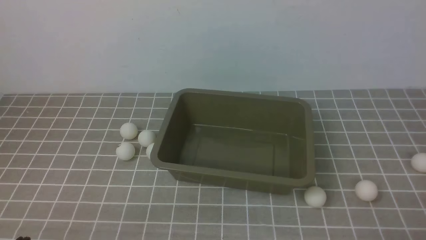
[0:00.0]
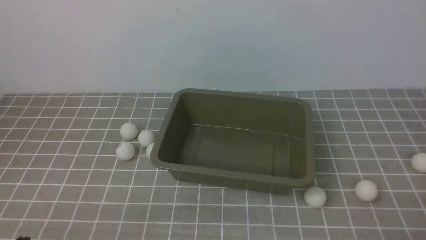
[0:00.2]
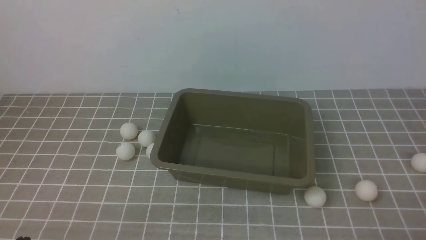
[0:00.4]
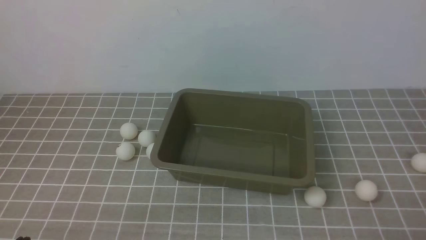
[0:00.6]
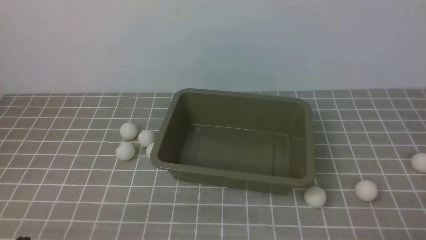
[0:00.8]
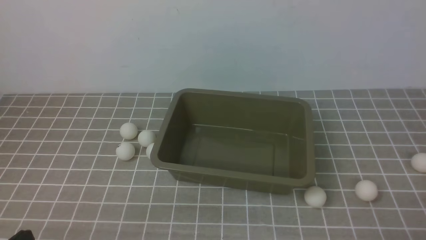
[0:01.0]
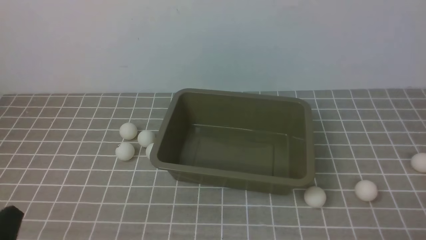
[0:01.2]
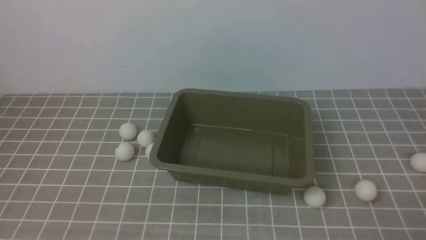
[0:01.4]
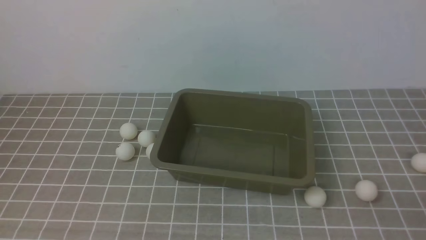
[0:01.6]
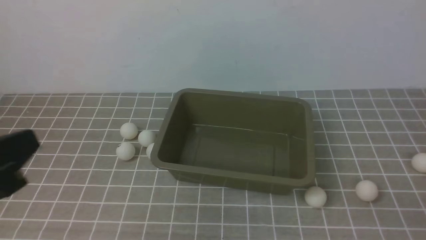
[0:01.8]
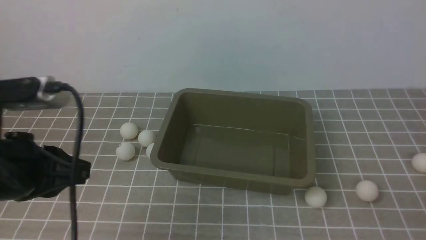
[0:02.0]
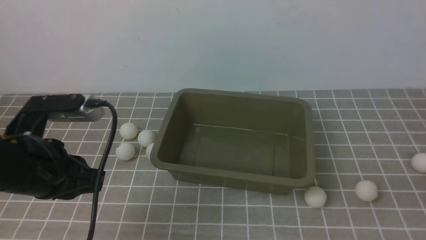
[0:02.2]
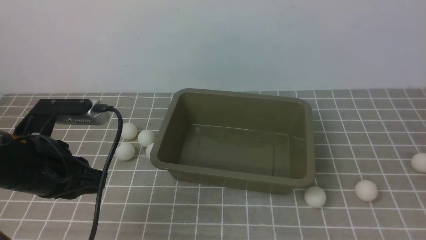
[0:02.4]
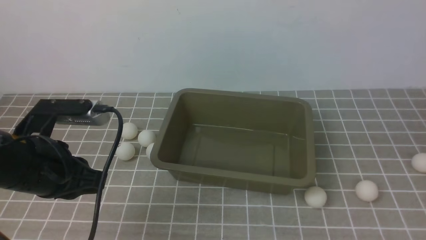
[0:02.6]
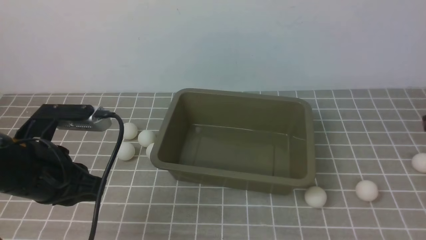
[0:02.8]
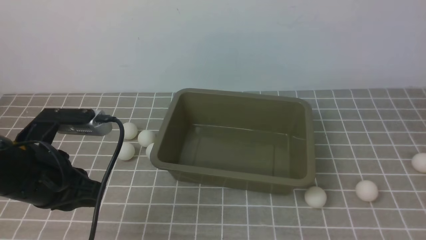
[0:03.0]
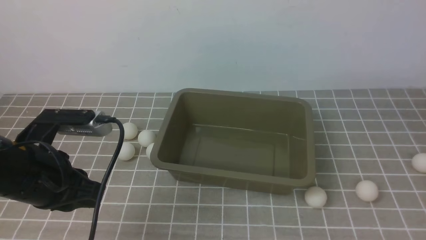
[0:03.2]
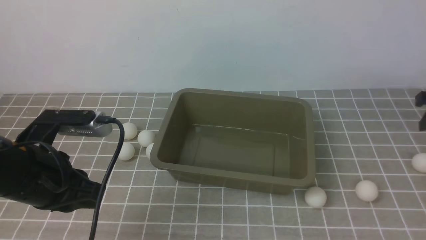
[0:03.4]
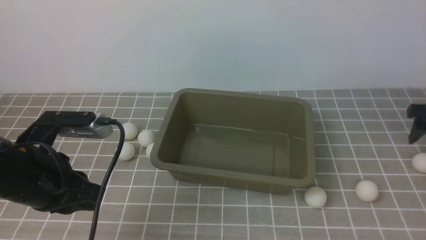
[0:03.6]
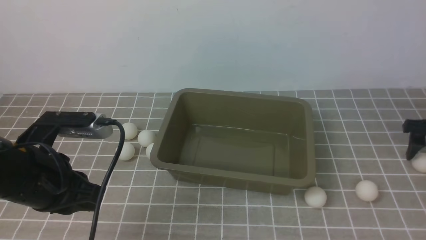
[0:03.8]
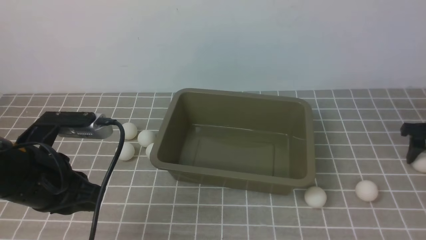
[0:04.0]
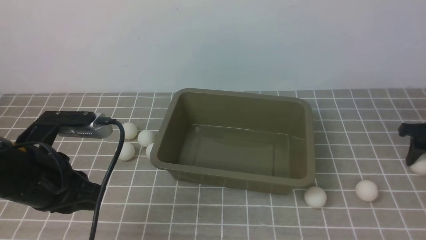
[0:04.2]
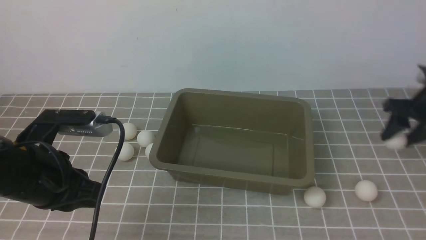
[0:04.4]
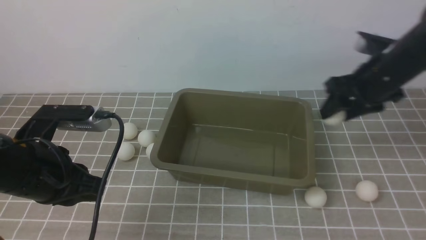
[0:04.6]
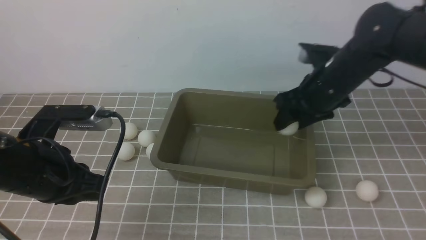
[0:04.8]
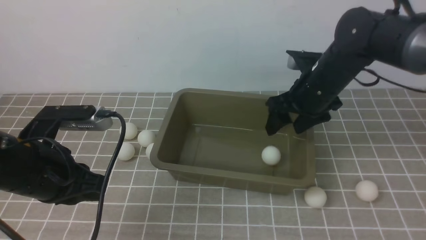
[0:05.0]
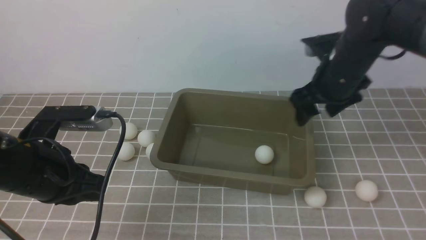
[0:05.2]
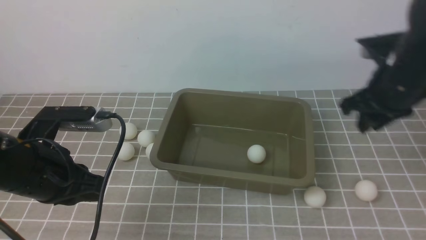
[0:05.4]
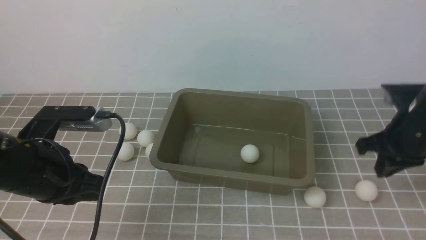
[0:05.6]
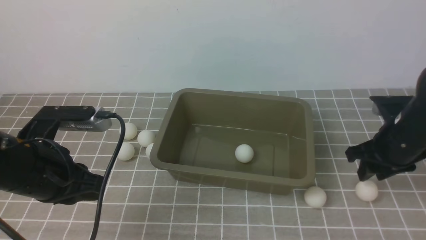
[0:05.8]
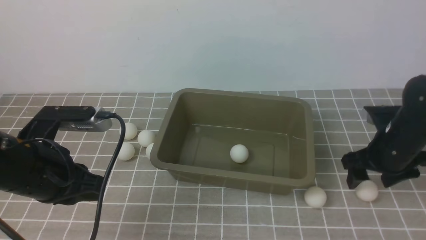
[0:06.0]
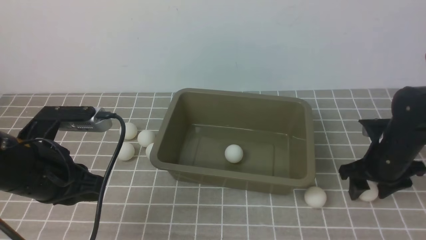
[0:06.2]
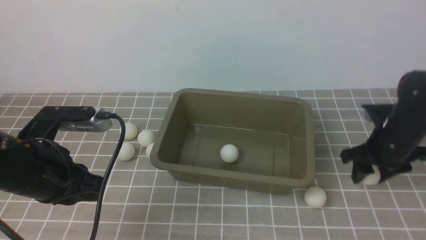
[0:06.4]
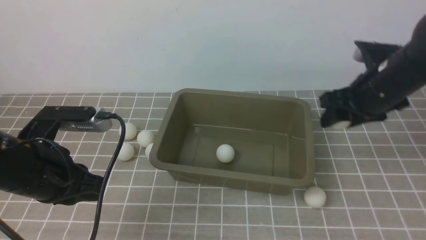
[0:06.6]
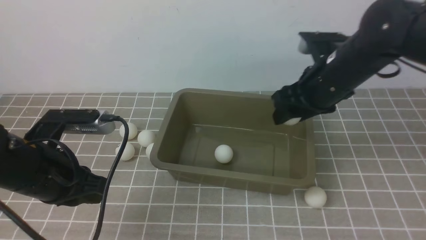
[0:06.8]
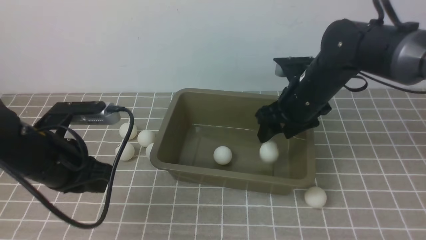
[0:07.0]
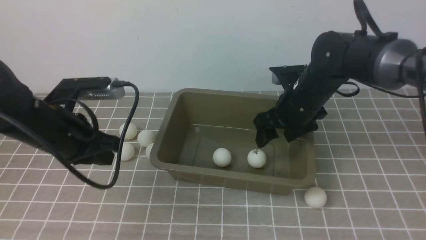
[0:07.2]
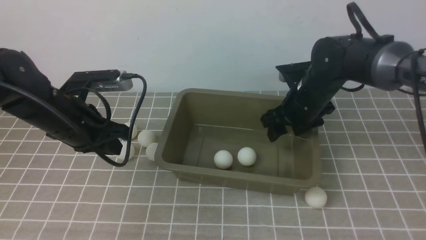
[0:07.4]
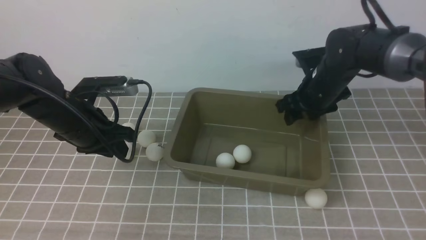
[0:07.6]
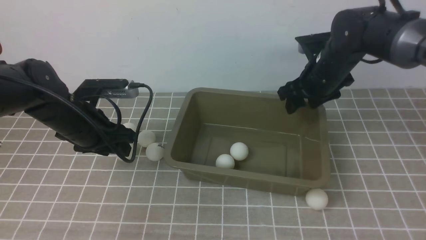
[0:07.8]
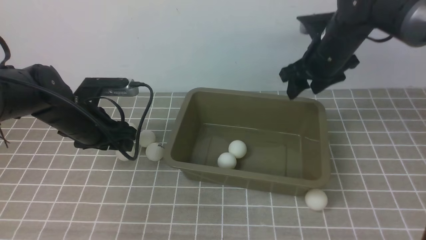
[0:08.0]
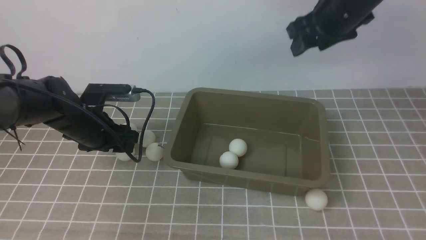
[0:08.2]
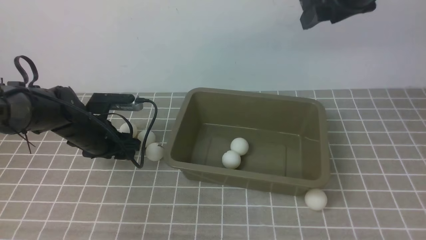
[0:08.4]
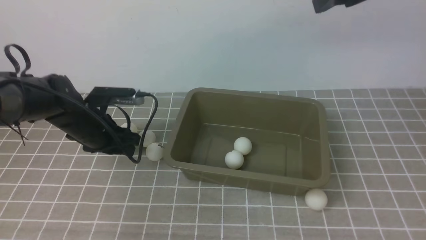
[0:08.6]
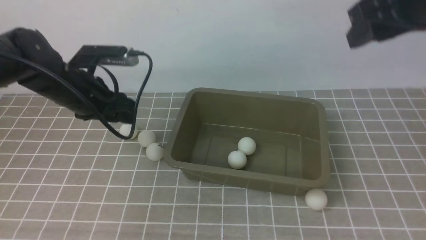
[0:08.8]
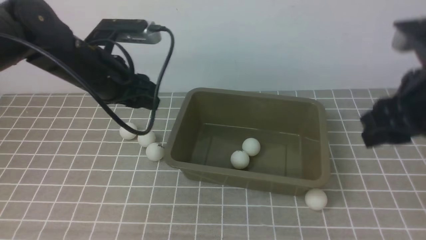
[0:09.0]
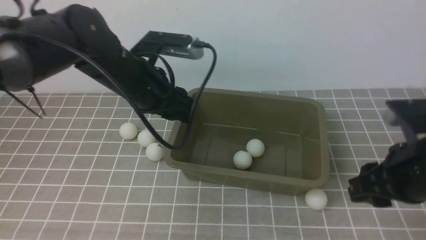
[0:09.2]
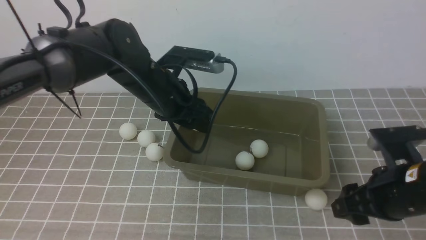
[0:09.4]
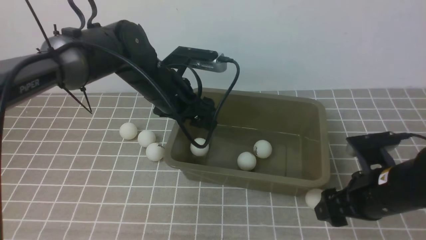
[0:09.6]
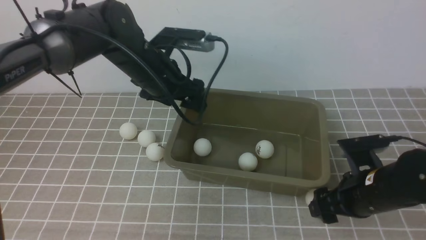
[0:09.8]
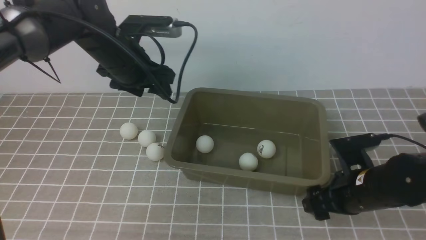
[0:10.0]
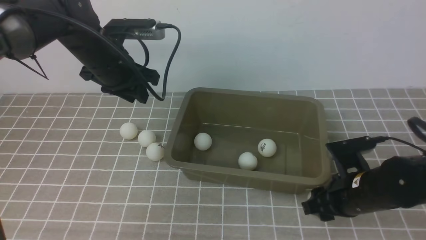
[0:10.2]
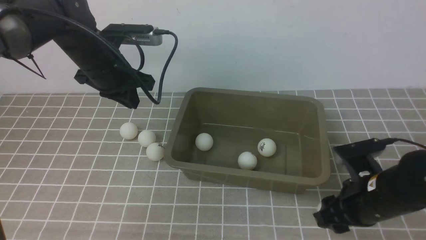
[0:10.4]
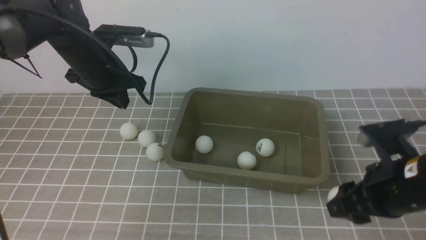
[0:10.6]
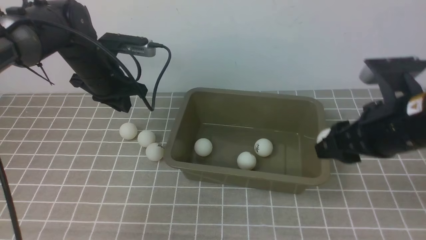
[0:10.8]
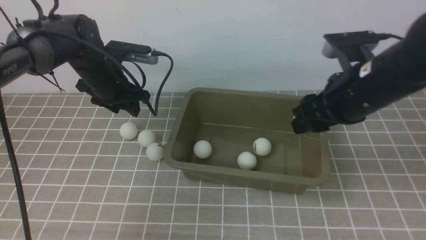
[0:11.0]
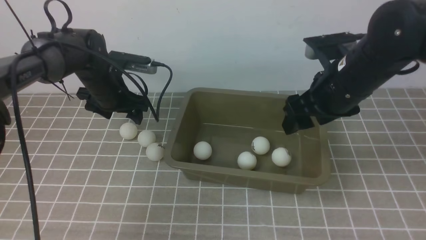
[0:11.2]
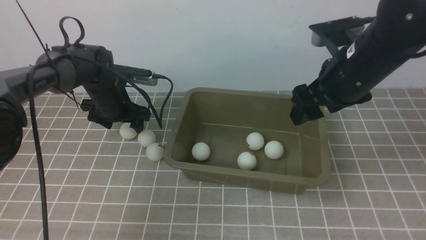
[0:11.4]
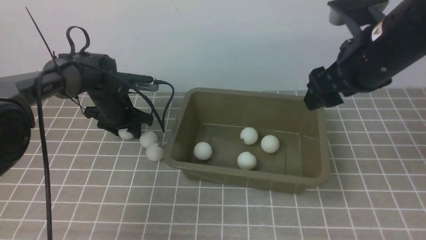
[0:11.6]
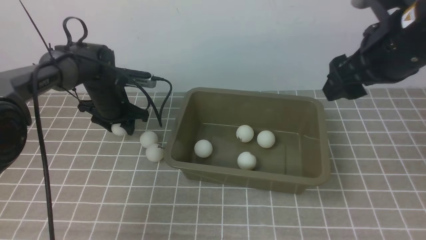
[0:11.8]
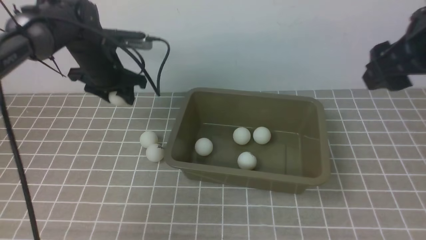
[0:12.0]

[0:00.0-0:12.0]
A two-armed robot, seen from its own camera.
Step, 0:00.0 to 0:04.4: use the right arm to clamp the table tennis ball closest to it.
Step, 0:04.6 to 0:05.2: use the right arm to put the table tennis ball into the box.
Step, 0:05.4 to 0:06.4: use the right arm to clamp the table tennis ball closest to it.
Step, 0:06.6 to 0:07.0: use the right arm to put the table tennis ball into the box.
Step, 0:07.2 to 0:08.6: use the left arm to clamp the table tennis ball closest to it.
Step, 0:08.8 to 0:09.6: use the left arm to put the table tennis ball into the box.
Step, 0:09.8 to 0:10.6: use the right arm to clamp the table tennis ball closest to it.
Step, 0:10.8 to 0:11.8: use the left arm to clamp the table tennis ball closest to it.
0:01.6 to 0:03.0: The left gripper shifts approximately 15 cm forward.
0:03.0 to 0:04.4: The right gripper shifts some 15 cm forward and downward, and opens.
0:04.4 to 0:06.0: The right gripper moves backward, approximately 5 cm, reaches approximately 15 cm to the left, then returns, and closes, then opens again.
0:06.0 to 0:07.6: The left gripper travels forward by about 10 cm, and opens; the right gripper heads forward and to the left, covering some 15 cm.
0:07.6 to 0:09.0: The left gripper travels upward and to the right by approximately 10 cm. The right gripper goes roughly 20 cm backward and upward.
0:09.0 to 0:10.4: The left gripper moves forward, some 5 cm, travels to the right and back again, some 5 cm each way, and closes. Meanwhile the right gripper moves downward, some 15 cm, and opens, then closes again.
0:10.4 to 0:12.0: The left gripper reaches about 10 cm downward, then returns, and opens up, while the right gripper goes roughly 20 cm upward.

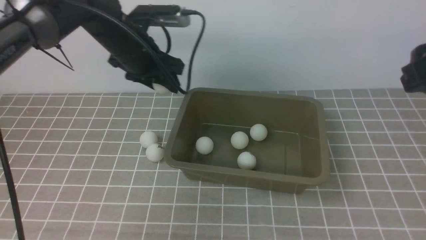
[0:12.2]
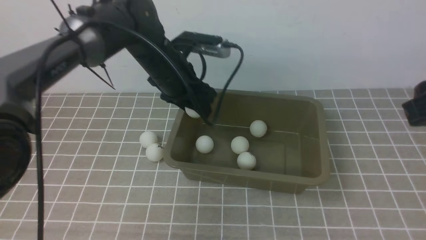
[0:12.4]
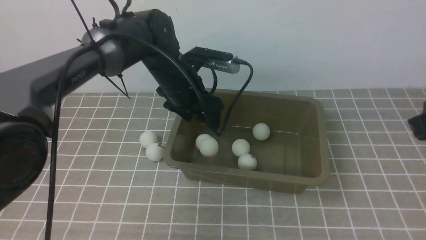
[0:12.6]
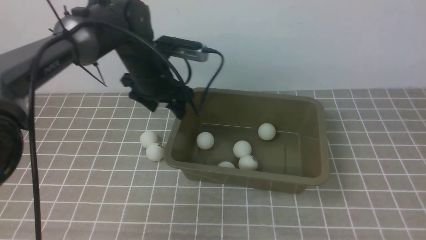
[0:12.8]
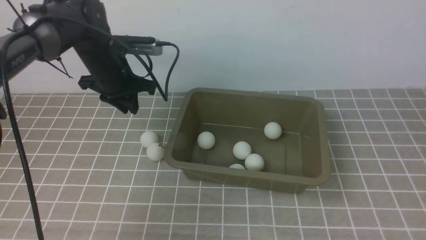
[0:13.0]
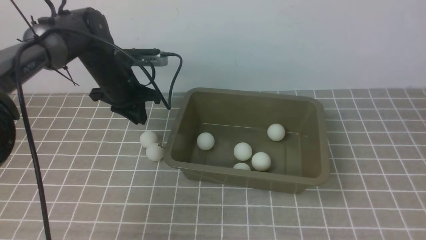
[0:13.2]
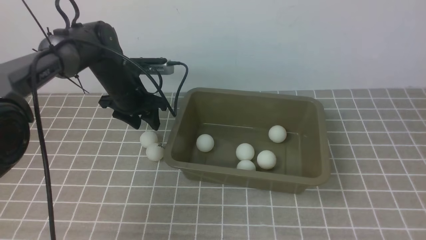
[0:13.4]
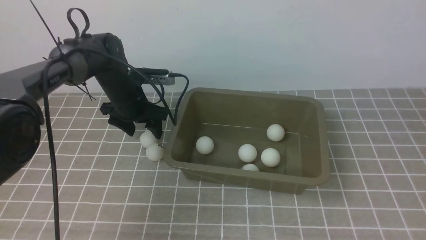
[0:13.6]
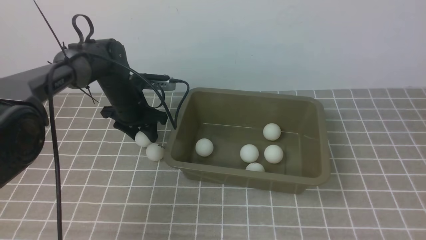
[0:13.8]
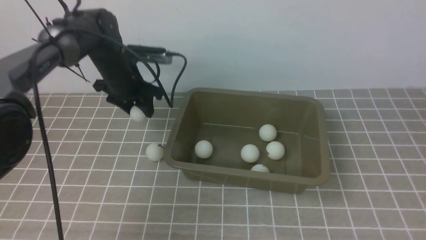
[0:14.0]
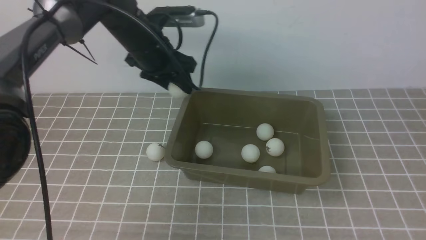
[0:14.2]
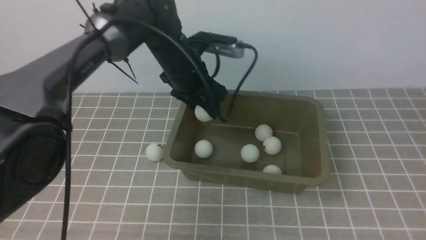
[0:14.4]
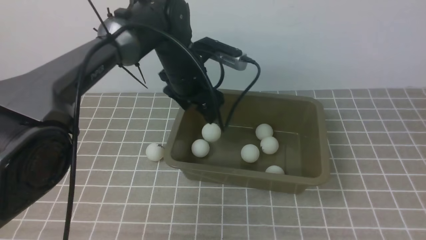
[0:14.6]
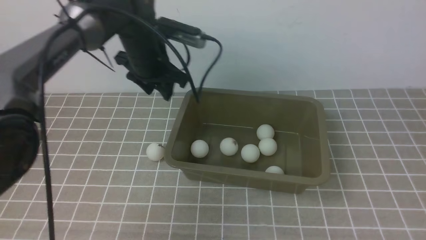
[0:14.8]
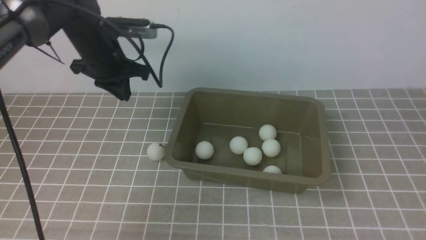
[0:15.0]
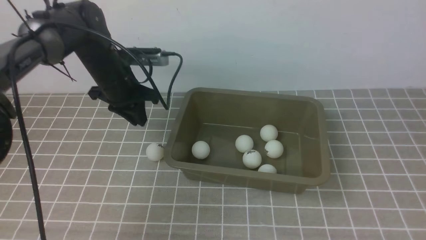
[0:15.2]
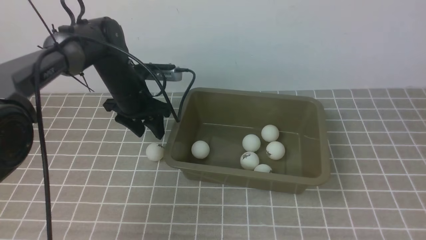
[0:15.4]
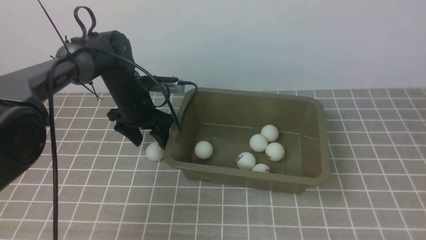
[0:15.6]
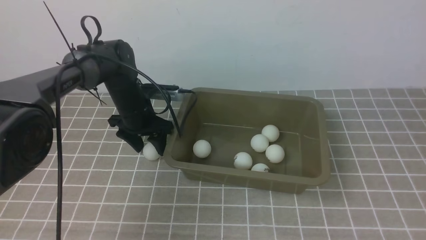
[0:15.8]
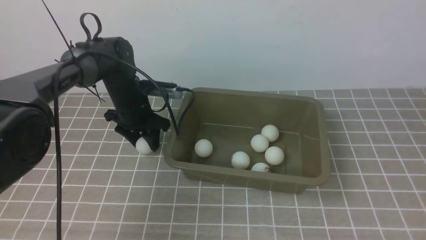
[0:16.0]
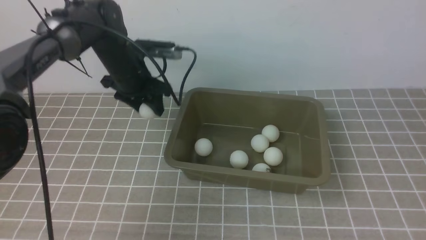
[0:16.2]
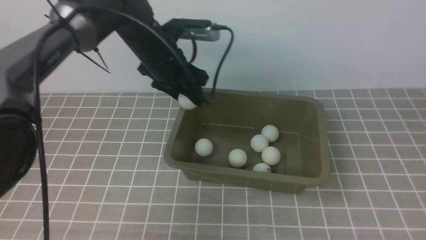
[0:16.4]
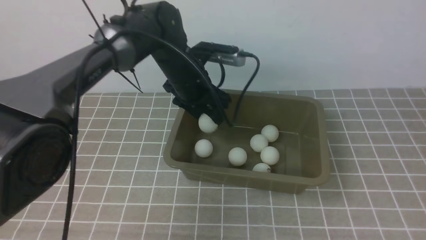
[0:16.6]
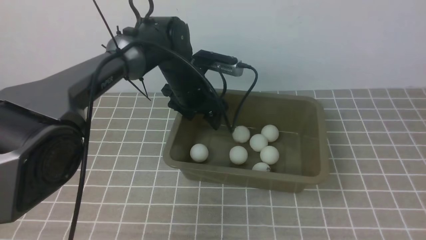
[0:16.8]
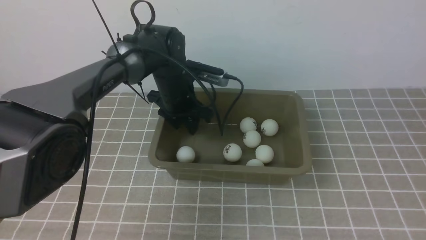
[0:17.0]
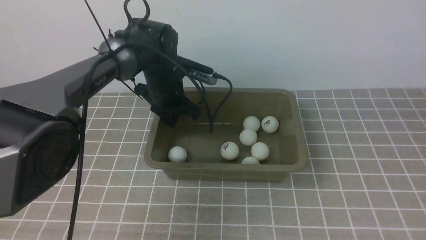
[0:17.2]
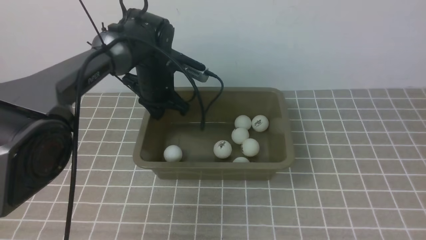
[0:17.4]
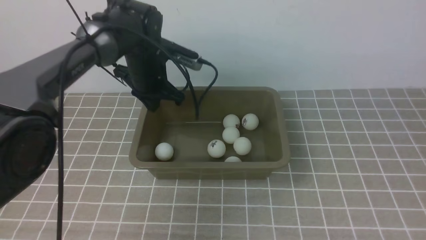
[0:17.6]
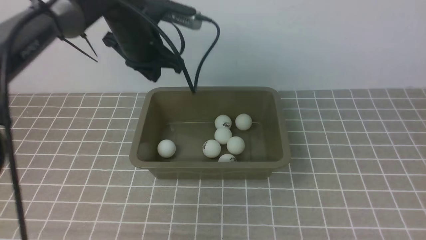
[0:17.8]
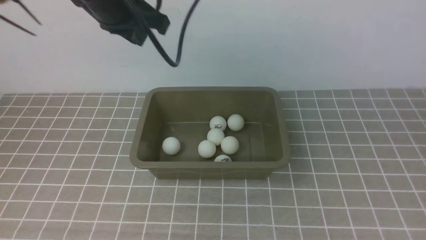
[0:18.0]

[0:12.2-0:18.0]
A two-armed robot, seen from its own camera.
Step, 0:12.2 to 0:12.8: use the left arm to put the table tennis ball into the box.
Step, 0:13.0 to 0:14.0: use the left arm to clamp the table tennis ball closest to it.
Step, 0:14.2 to 0:14.6: use the left arm to put the table tennis ball into the box.
Step, 0:15.0 to 0:16.2: use the left arm to clamp the table tennis ball closest to it.
Step, 0:16.4 to 0:16.8: use the left arm to put the table tennis ball into the box.
0:12.2 to 0:13.6: The left gripper moves downward, about 10 cm; the right gripper is displaced backward by about 10 cm, and closes up.
0:13.6 to 0:15.0: The left gripper shifts some 10 cm upward, travels to the right and back again, some 10 cm each way, and closes up.
0:15.0 to 0:16.6: The left gripper shifts approximately 10 cm to the right, and opens up.
0:16.6 to 0:18.0: The right gripper is displaced backward by some 5 cm; the left gripper is displaced upward, backward and to the left by roughly 20 cm, and closes up.
